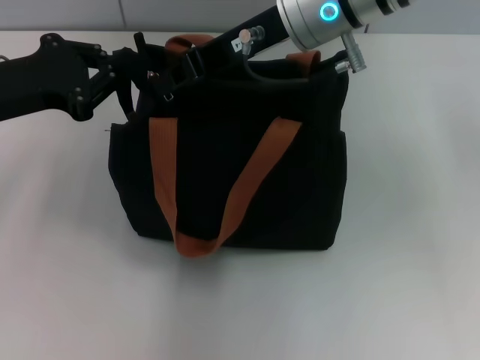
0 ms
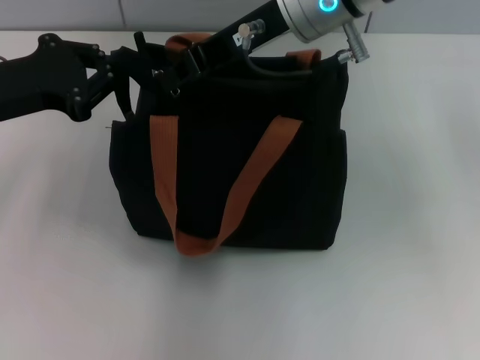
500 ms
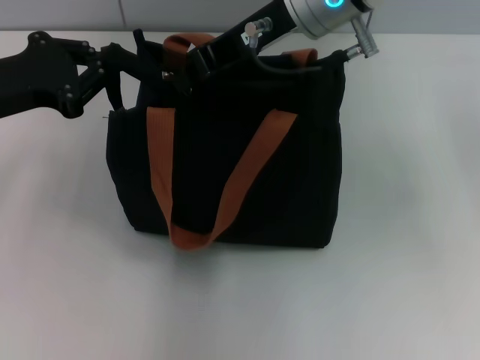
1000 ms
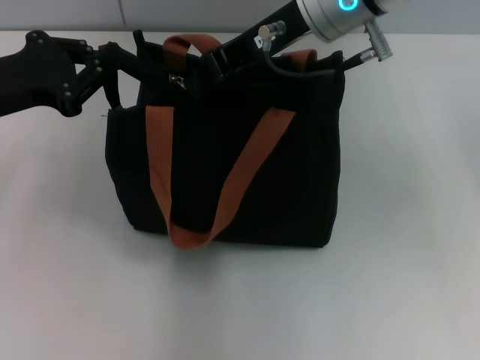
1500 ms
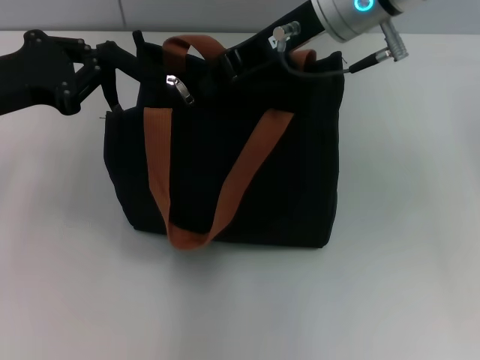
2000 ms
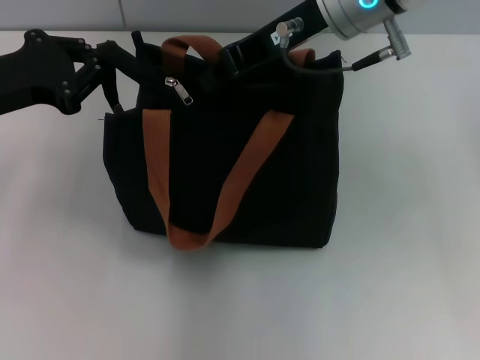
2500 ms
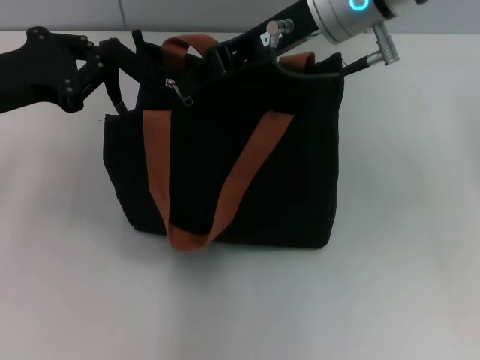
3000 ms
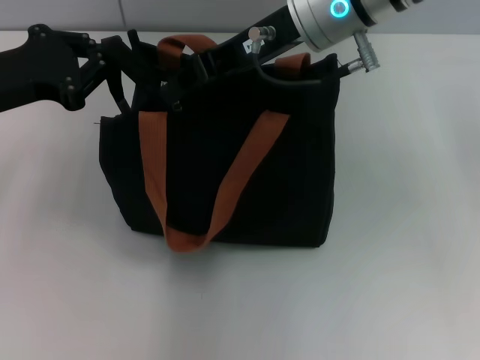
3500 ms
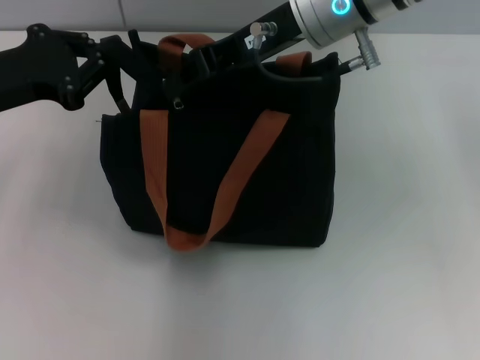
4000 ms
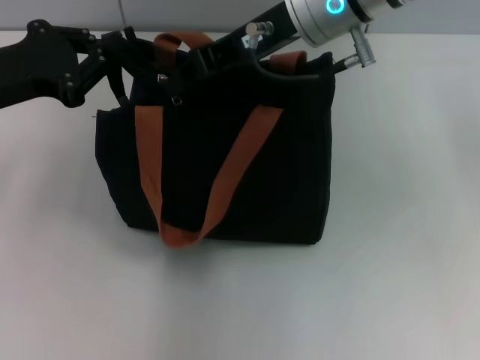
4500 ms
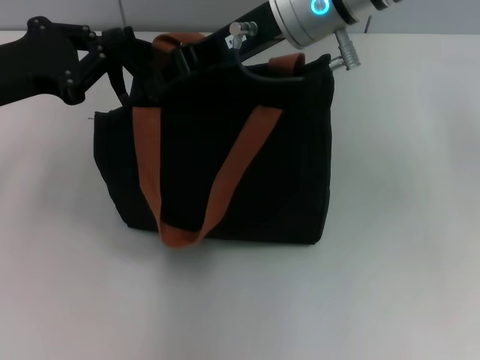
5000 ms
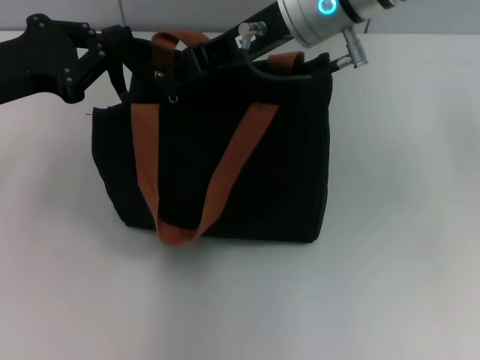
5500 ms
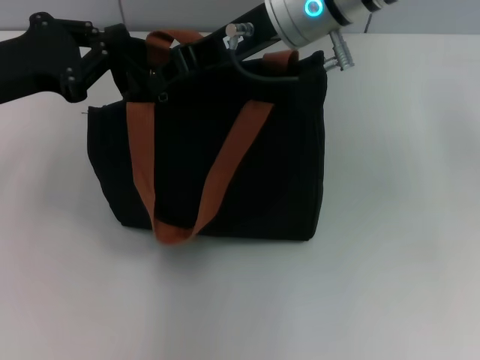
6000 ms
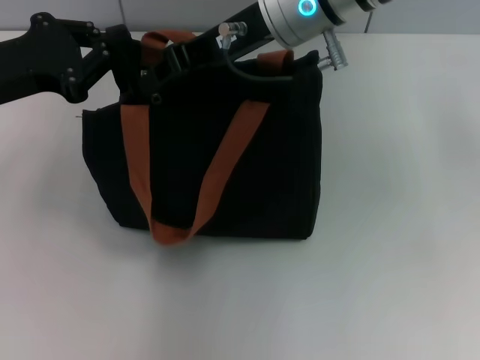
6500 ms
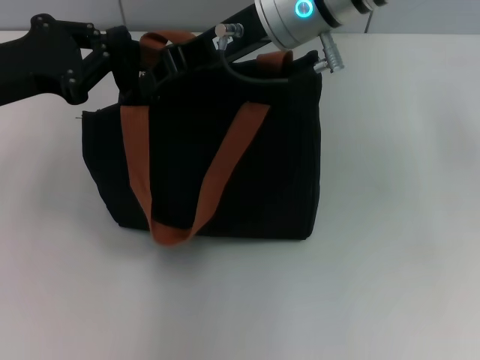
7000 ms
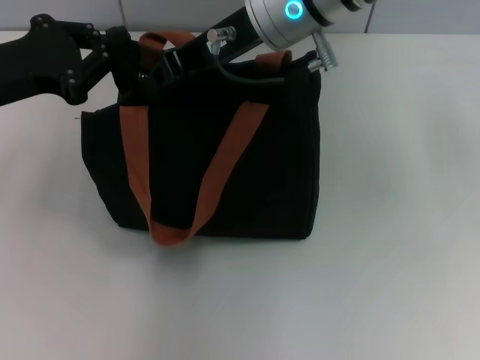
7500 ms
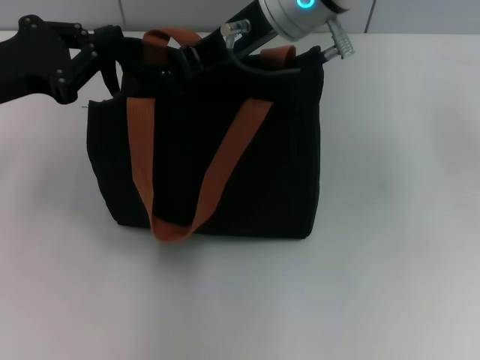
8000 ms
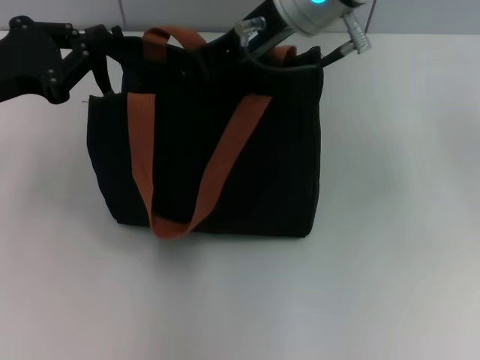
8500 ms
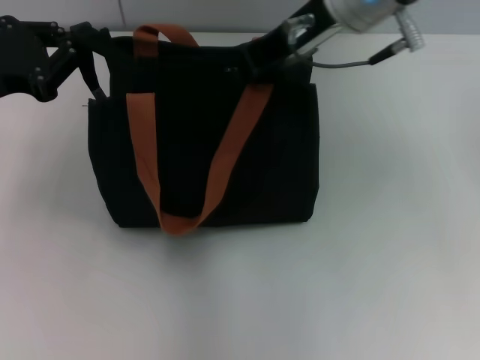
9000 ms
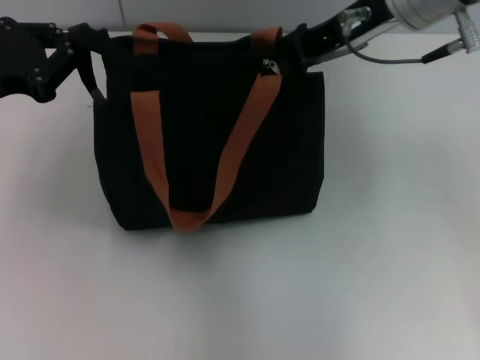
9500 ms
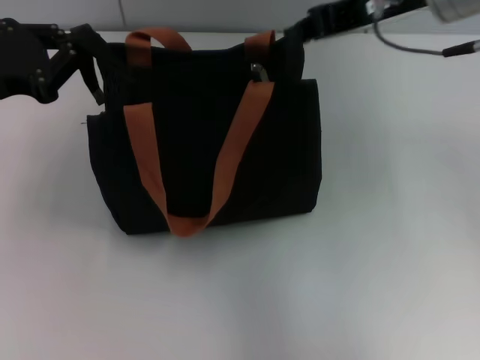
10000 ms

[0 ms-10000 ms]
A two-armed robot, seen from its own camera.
0 ms to 8000 ms: The grippers make only small movements.
8000 ms to 10000 ms: The right gripper moves to the right, roughly 10 cm.

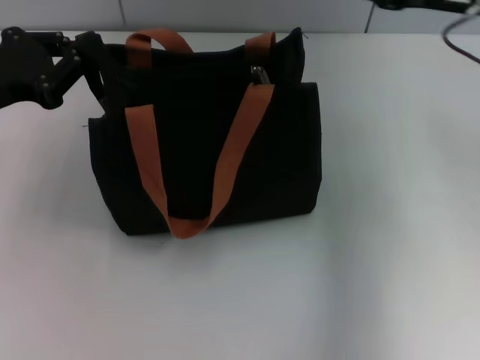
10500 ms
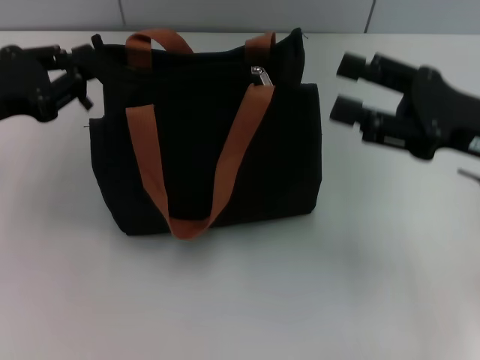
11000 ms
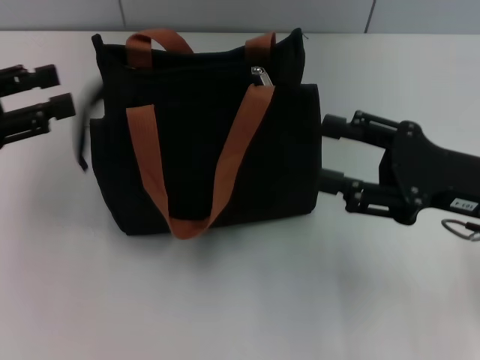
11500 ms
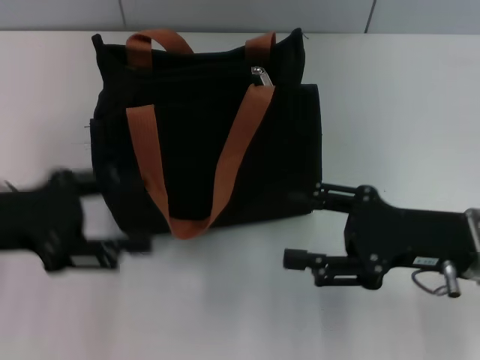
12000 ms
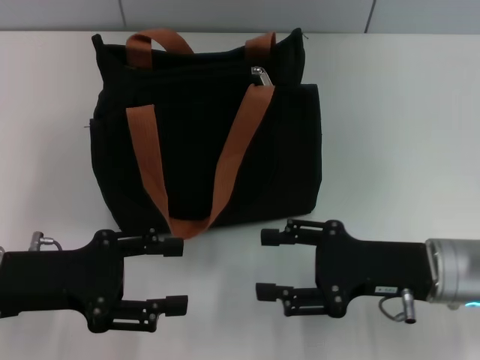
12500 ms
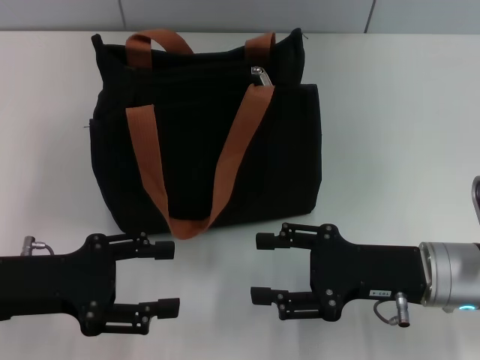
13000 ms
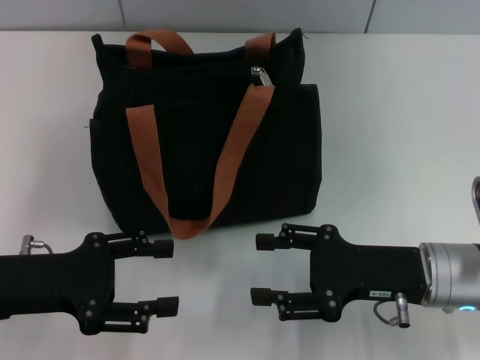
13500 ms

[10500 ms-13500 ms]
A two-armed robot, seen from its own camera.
Step, 10500 ms to 11500 ms: Grab the zipper with your left hand.
10500 ms to 12000 ms: The right gripper travels downward and backward by some 20 cm, and opens its fingers. The left gripper moves backward, about 5 cm, and opens its fingers.
12000 ms to 13500 ms: The left gripper heads downward, covering some 5 cm.
